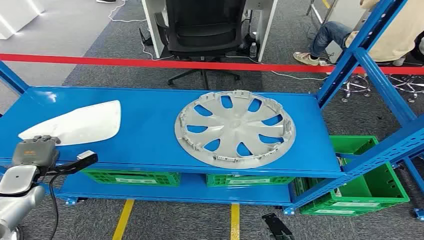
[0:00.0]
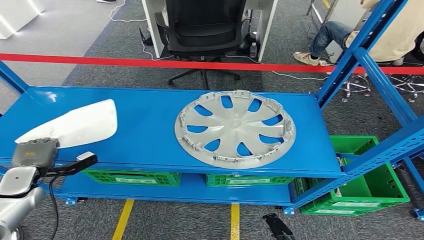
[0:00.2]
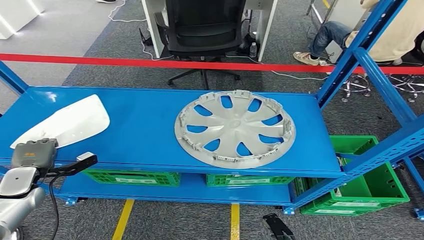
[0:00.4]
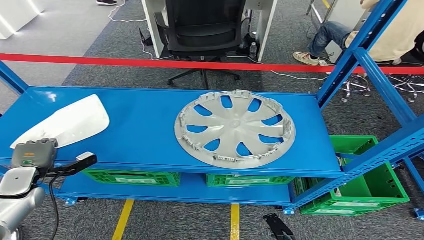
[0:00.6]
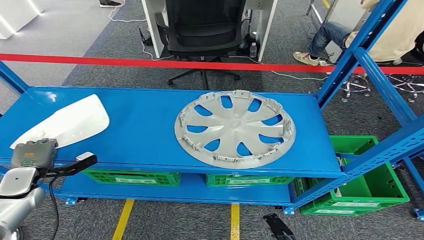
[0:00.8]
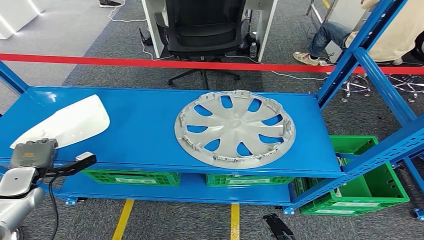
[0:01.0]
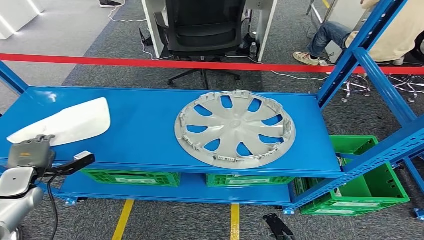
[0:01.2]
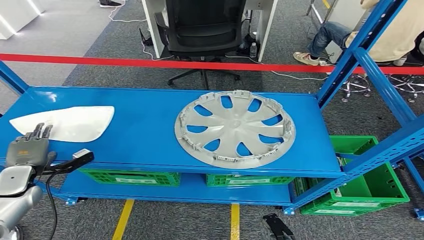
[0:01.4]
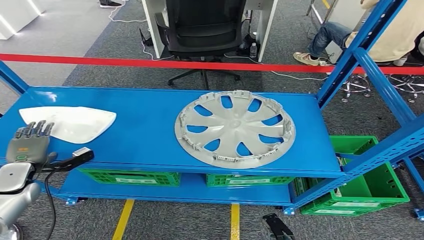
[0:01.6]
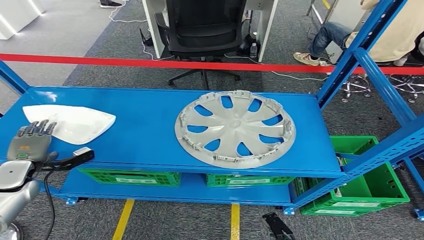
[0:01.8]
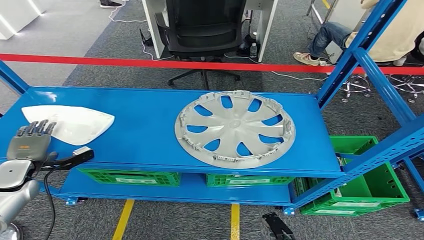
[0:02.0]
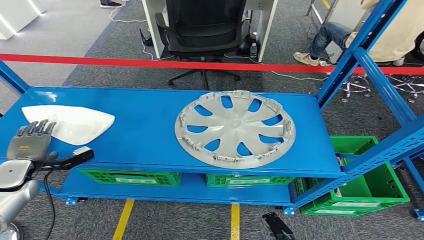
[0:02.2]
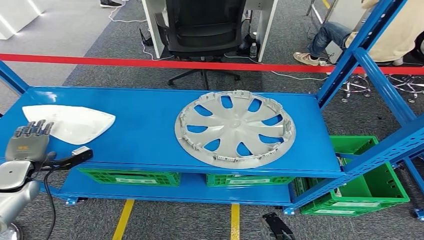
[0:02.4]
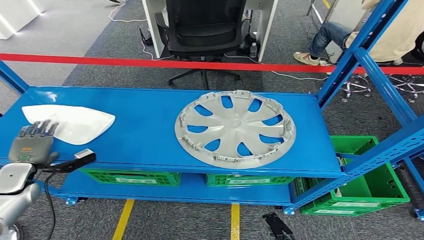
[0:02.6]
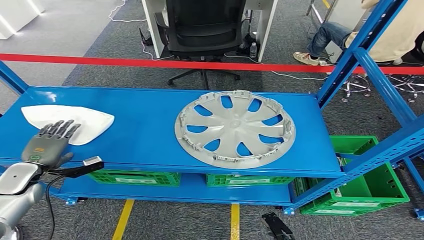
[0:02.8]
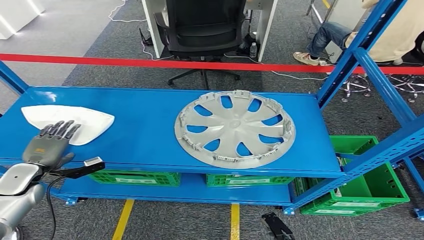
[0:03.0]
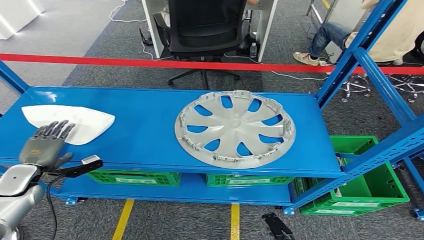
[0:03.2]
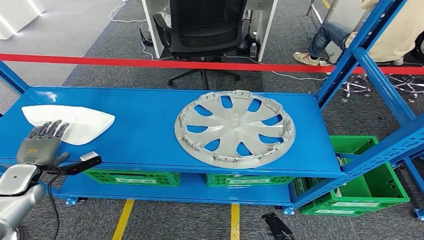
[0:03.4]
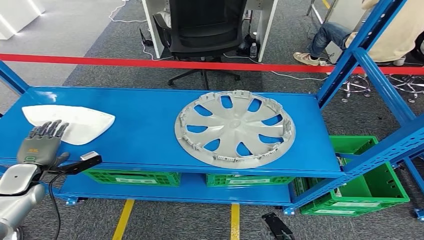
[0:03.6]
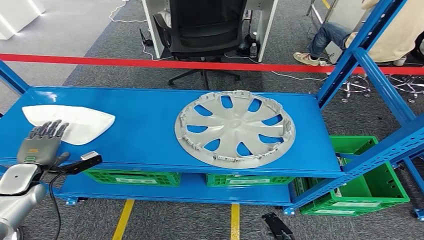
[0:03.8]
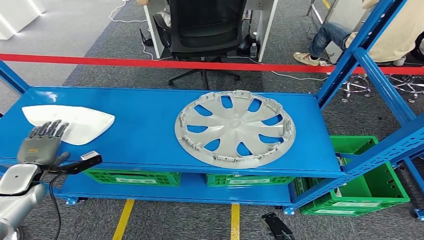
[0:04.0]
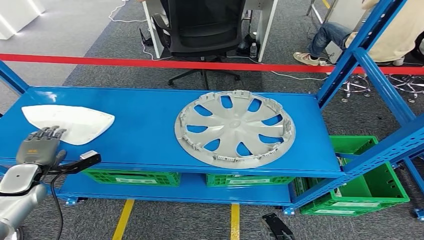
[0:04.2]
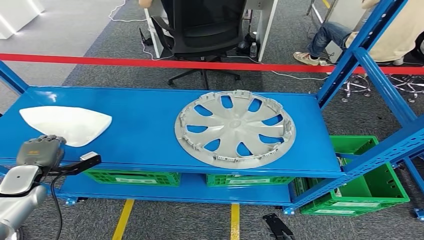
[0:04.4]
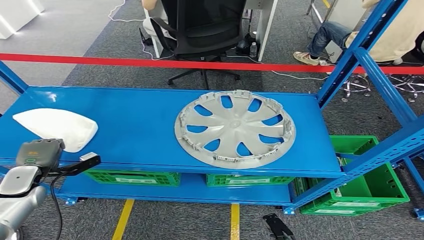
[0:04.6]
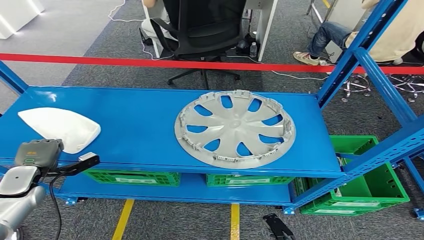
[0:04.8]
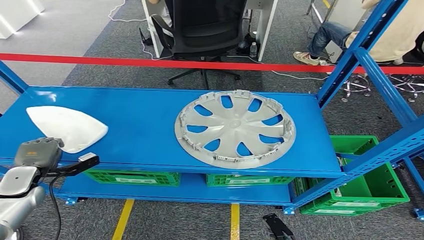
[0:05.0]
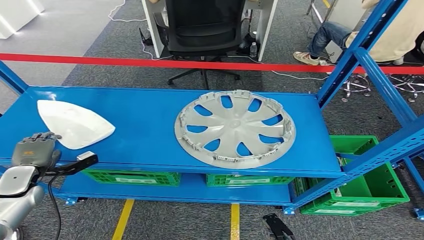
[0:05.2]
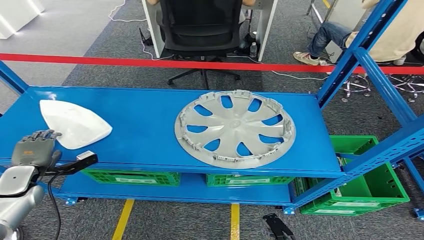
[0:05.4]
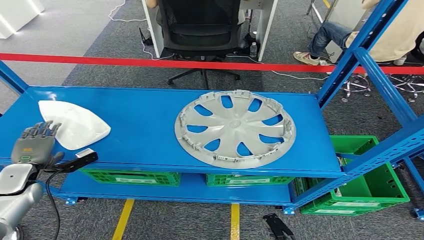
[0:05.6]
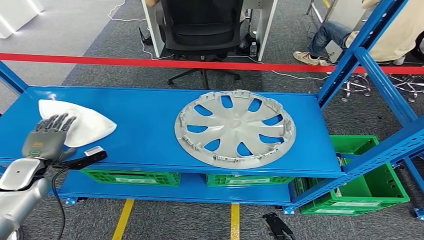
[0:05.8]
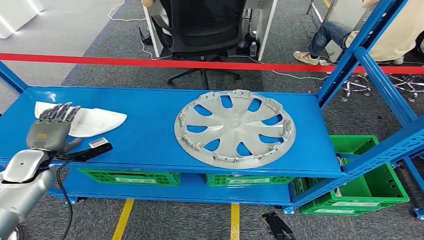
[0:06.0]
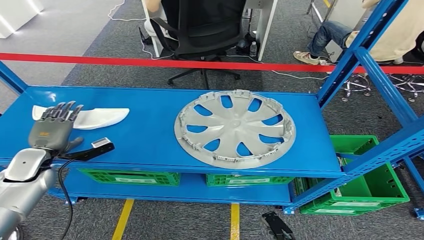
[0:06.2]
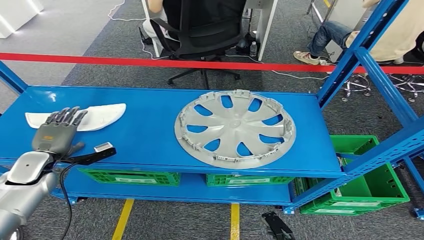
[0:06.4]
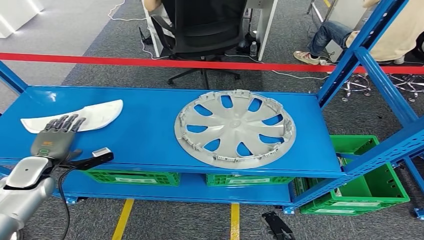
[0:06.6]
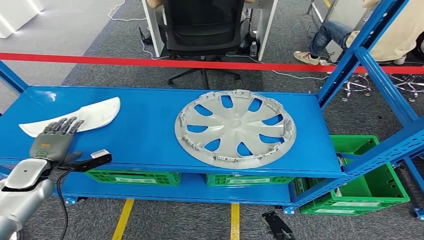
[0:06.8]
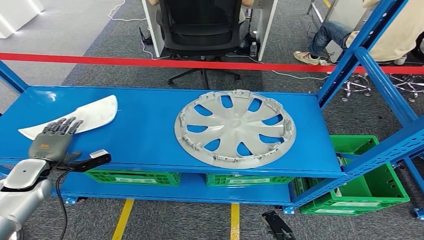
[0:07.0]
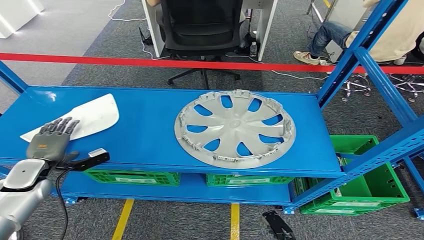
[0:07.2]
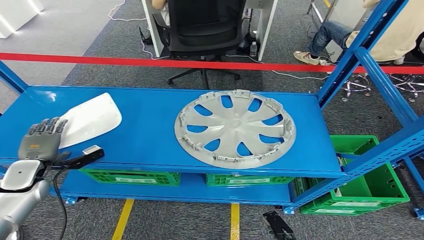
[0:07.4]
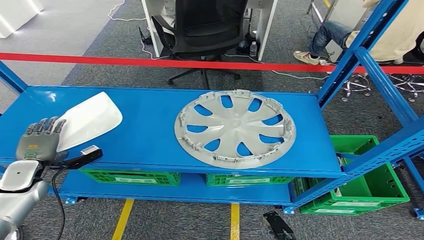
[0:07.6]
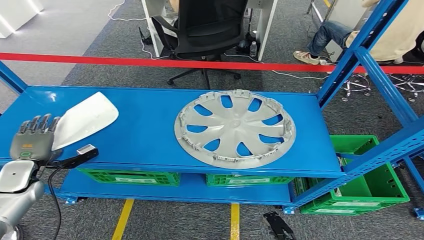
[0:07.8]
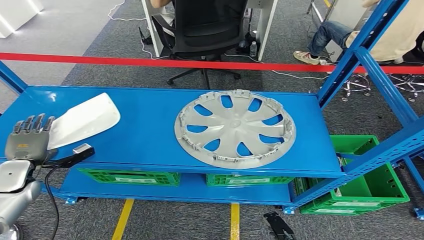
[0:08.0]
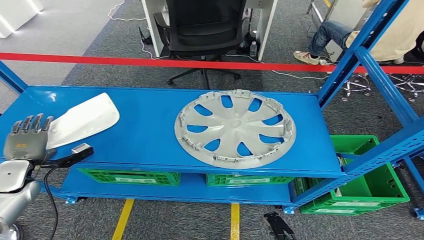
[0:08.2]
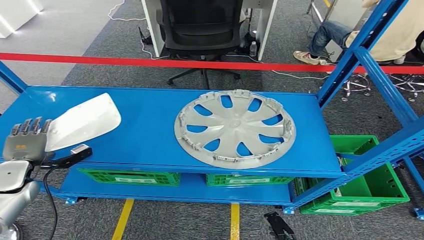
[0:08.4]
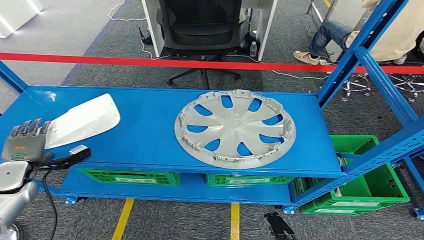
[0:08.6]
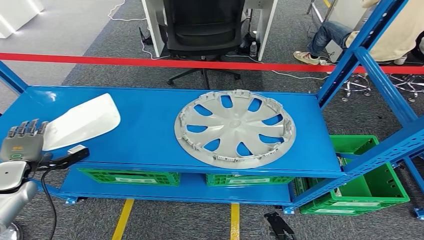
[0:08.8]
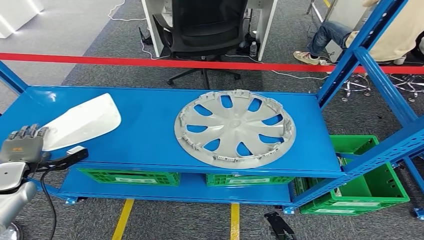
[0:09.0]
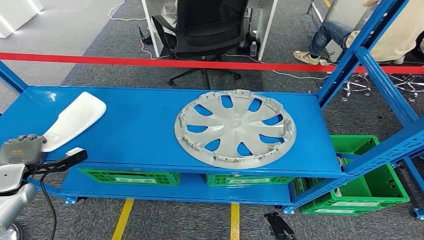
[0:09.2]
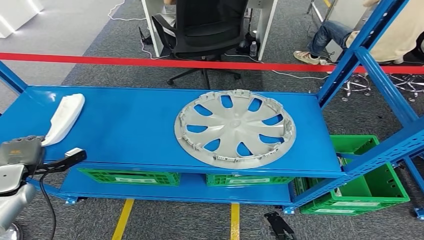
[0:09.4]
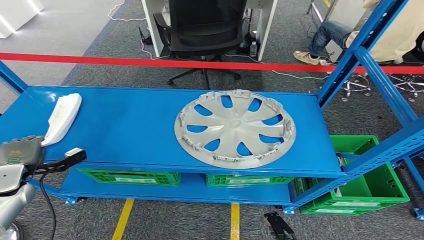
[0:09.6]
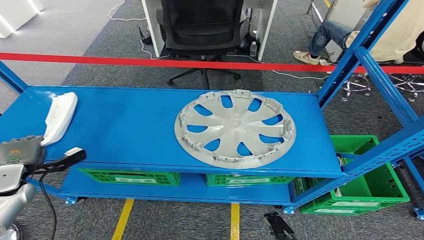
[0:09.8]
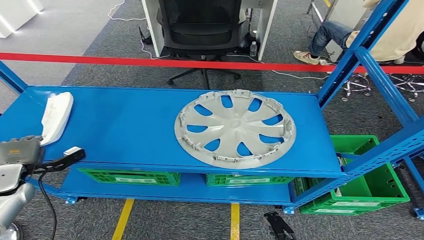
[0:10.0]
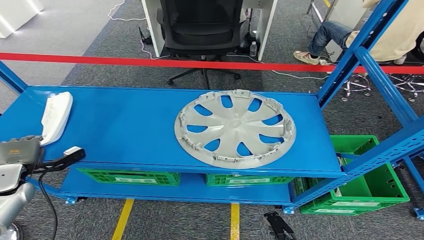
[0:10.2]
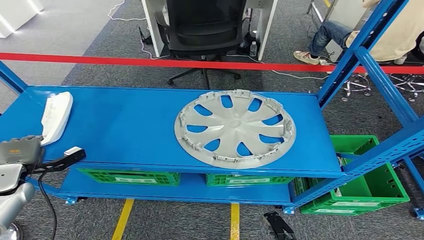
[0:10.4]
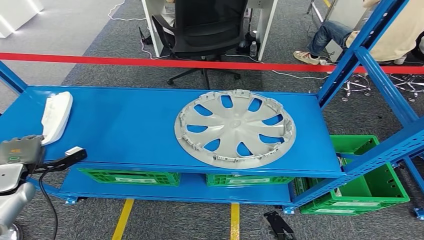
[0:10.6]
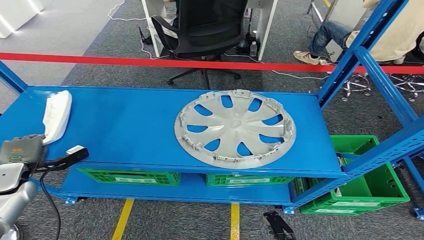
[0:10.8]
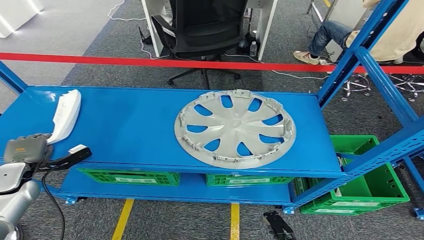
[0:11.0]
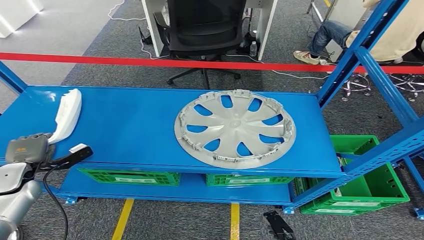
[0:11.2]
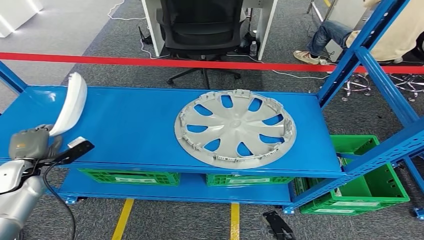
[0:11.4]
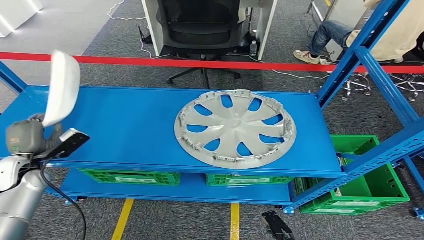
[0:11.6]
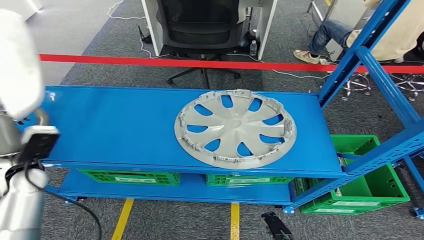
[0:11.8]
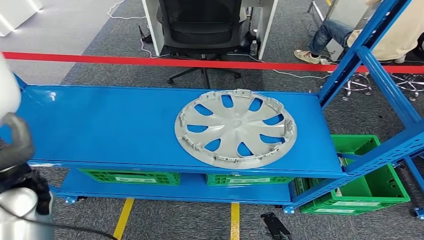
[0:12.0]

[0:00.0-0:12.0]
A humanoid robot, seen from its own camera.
Step, 0:00.0 to 0:11.6: Pick up the small component from the shelf.
0:03.0 to 0:04.4: There are only small adjustments of the hands.
0:04.4 to 0:06.0: The left hand shifts by some 5 cm.
0:06.0 to 0:07.6: The hands make only small movements.
0:07.6 to 0:09.0: The hands make only small movements.
0:09.0 to 0:10.4: Both hands stay about where they are.
0:10.4 to 0:12.0: The left hand moves to the right and upward, about 20 cm.

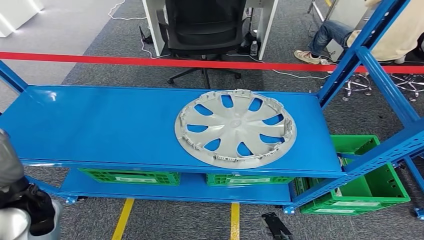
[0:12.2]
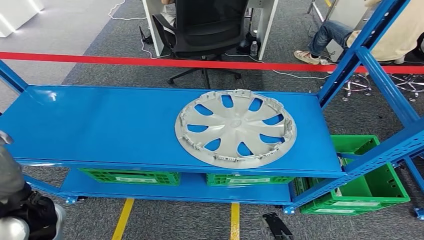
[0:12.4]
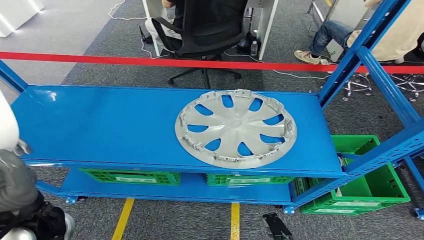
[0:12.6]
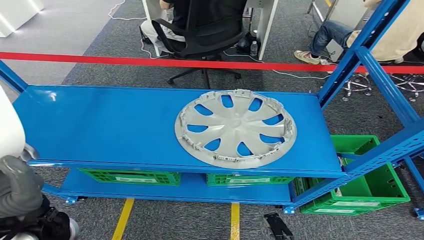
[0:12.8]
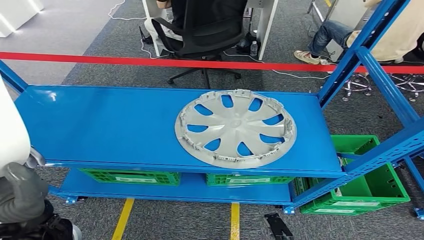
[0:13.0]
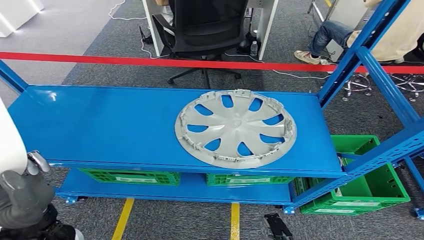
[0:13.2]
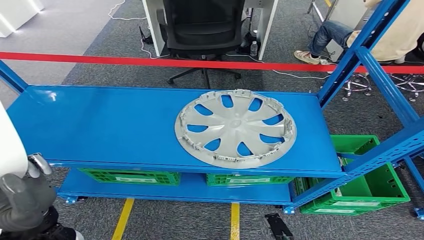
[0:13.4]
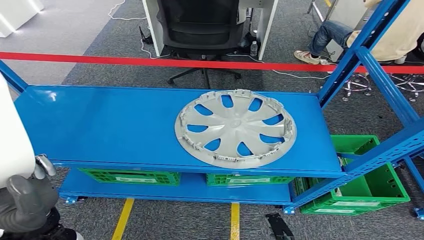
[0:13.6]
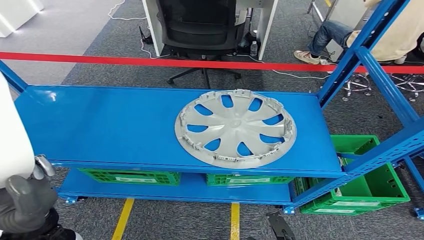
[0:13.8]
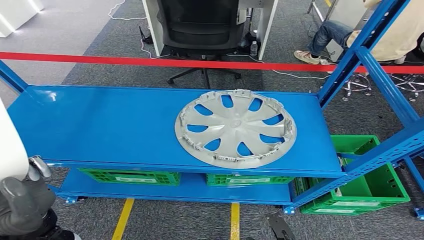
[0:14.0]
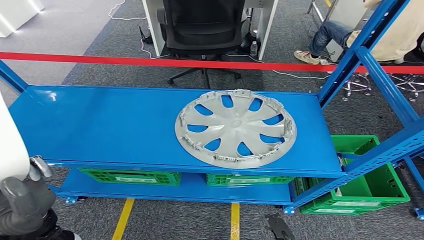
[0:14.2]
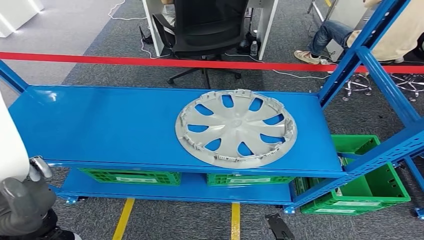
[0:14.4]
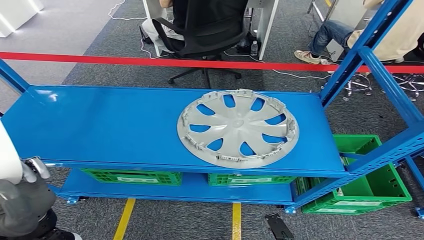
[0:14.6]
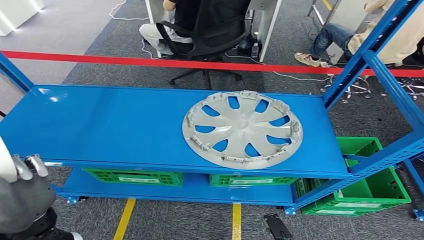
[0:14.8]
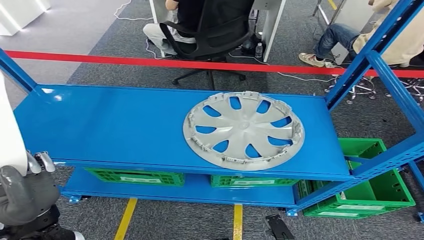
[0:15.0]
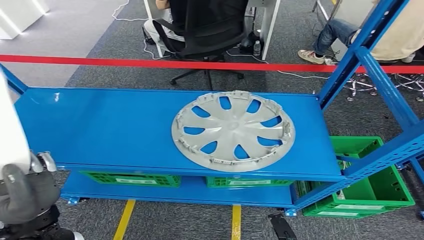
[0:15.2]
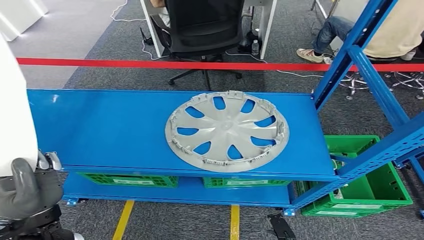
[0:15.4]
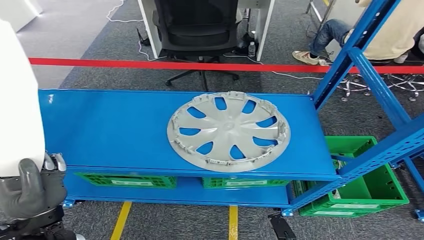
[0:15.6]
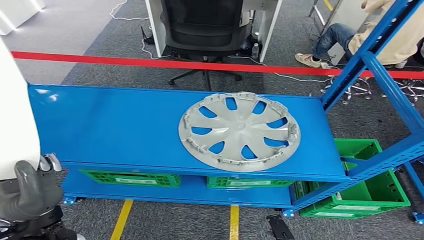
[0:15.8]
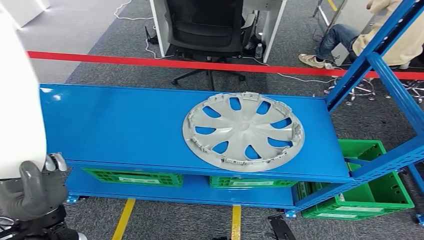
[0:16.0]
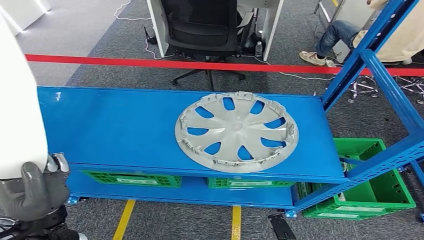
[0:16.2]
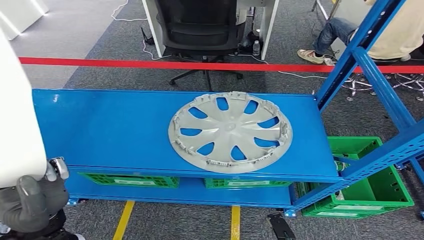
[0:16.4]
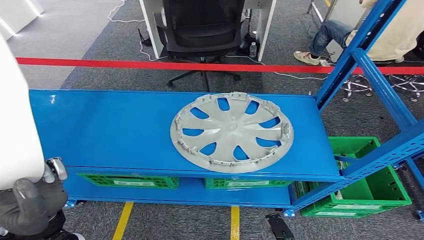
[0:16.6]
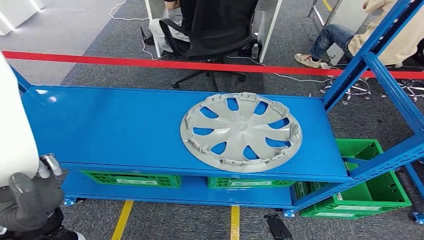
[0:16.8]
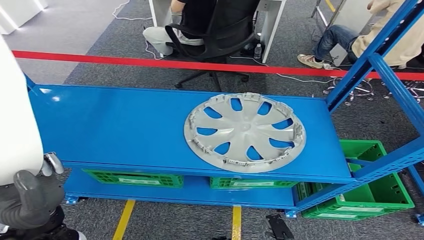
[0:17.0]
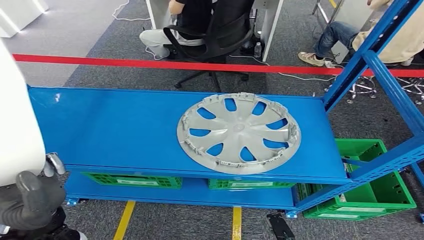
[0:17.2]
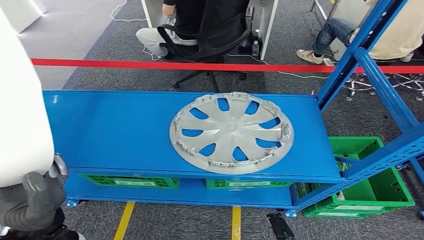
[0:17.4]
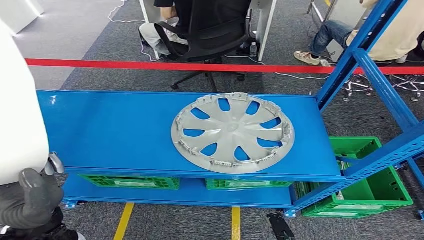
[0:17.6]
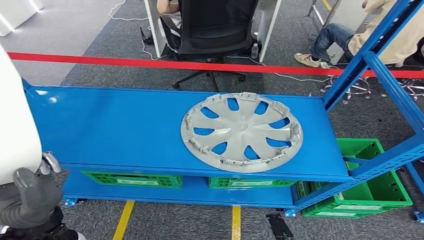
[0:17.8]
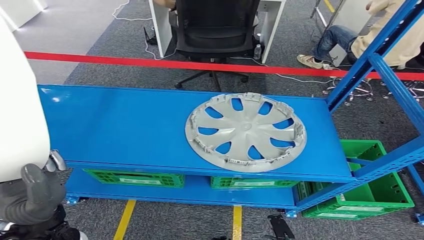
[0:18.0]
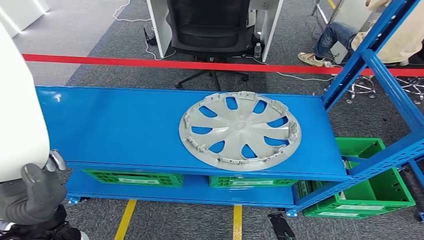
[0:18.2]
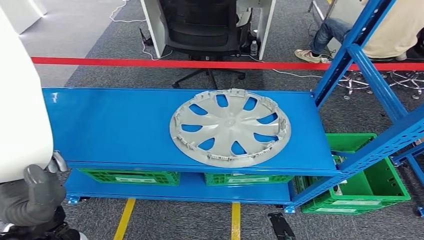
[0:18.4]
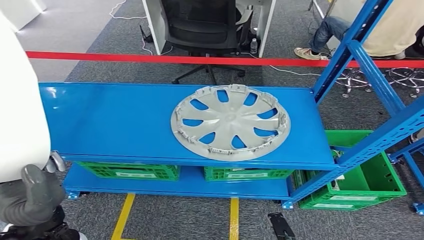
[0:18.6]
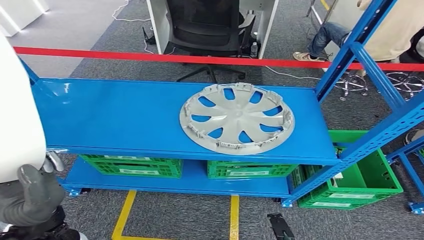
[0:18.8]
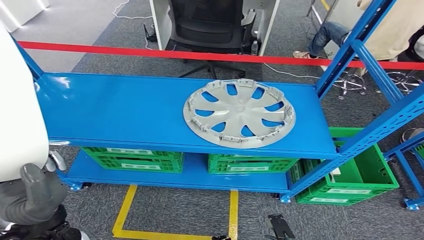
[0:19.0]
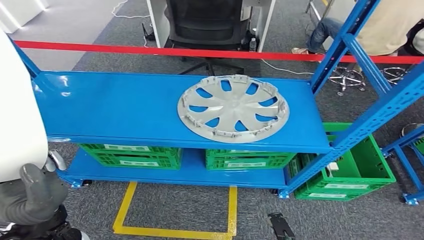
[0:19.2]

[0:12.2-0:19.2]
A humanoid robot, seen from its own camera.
0:12.2 to 0:13.6: The left hand is displaced backward by about 10 cm.
